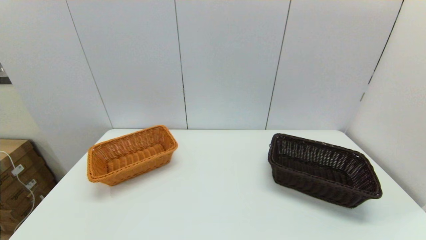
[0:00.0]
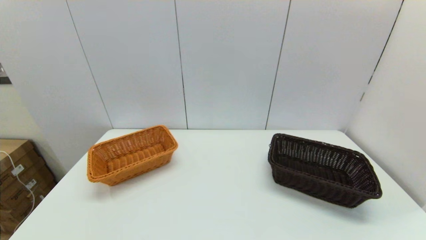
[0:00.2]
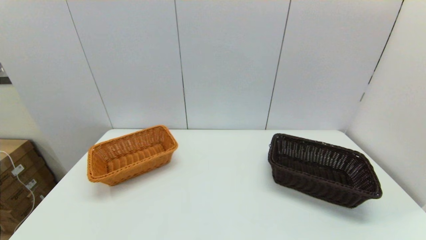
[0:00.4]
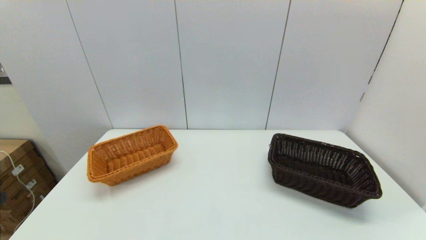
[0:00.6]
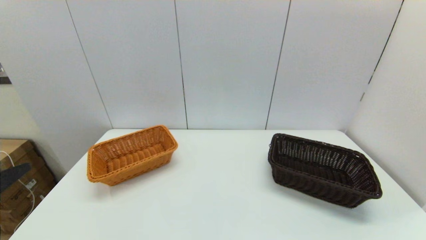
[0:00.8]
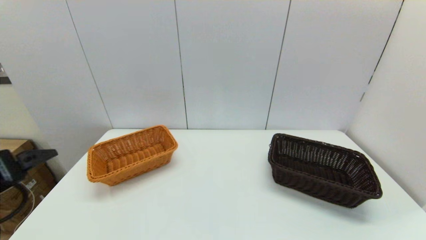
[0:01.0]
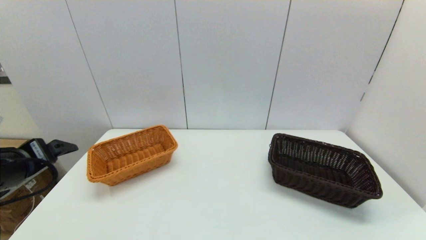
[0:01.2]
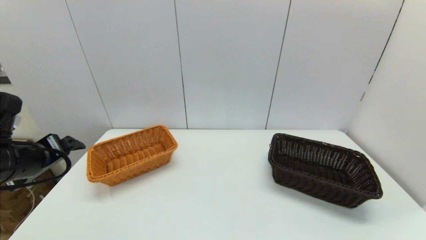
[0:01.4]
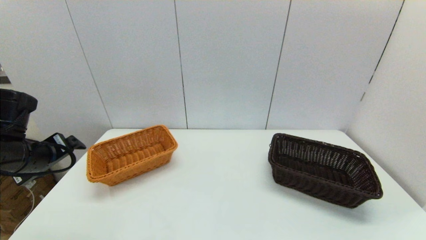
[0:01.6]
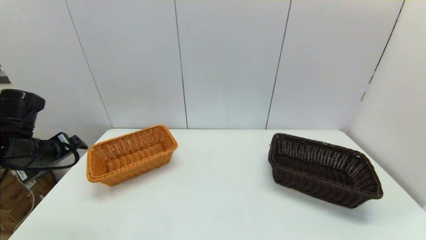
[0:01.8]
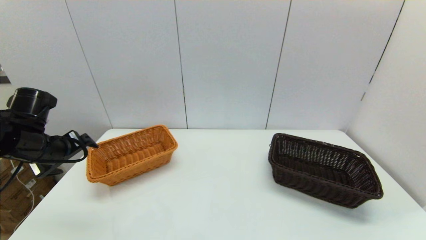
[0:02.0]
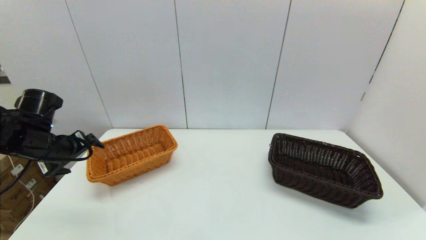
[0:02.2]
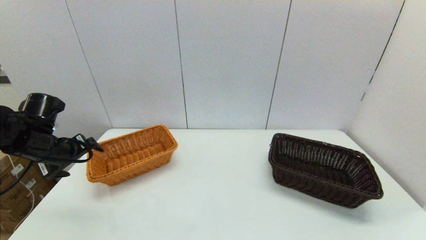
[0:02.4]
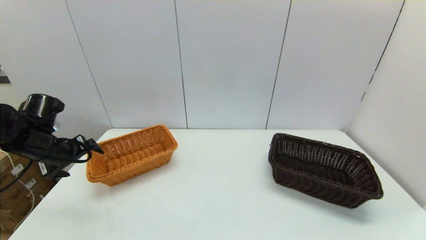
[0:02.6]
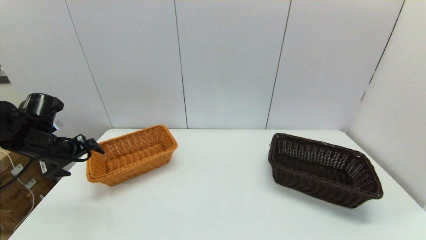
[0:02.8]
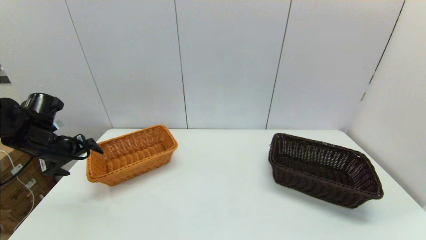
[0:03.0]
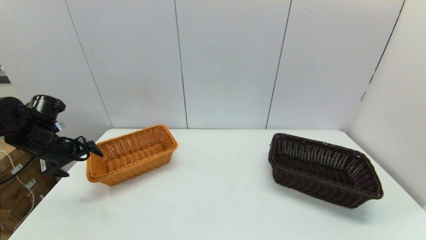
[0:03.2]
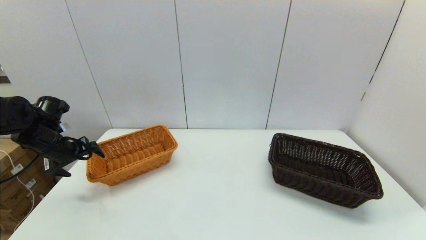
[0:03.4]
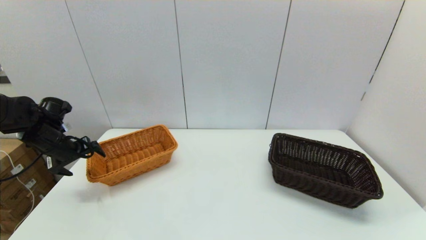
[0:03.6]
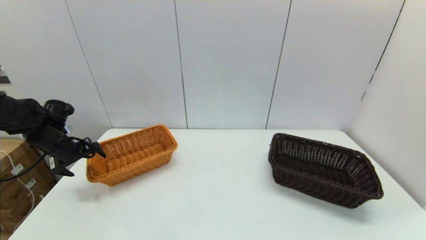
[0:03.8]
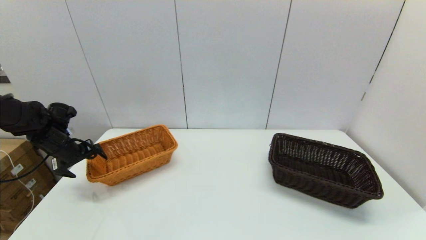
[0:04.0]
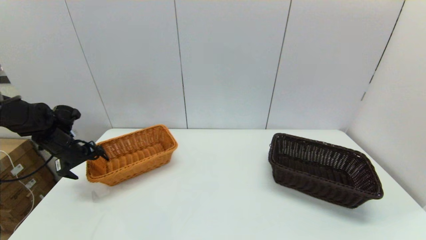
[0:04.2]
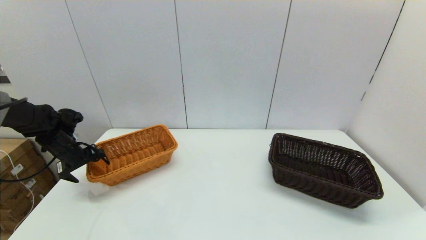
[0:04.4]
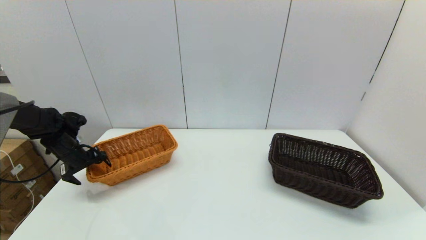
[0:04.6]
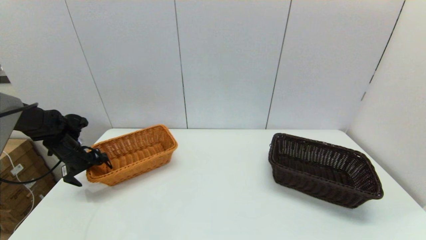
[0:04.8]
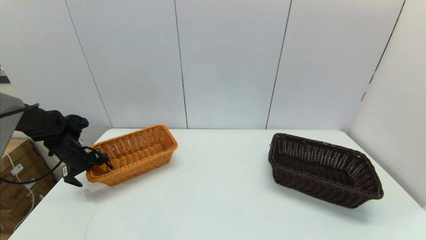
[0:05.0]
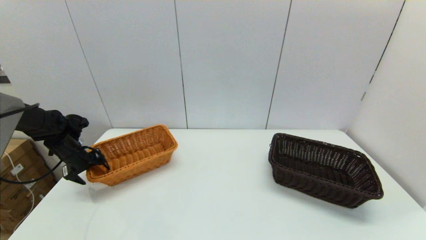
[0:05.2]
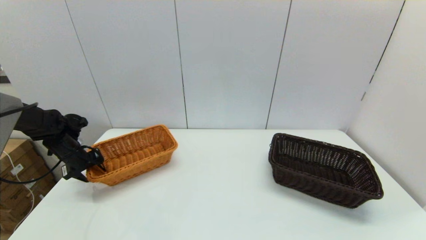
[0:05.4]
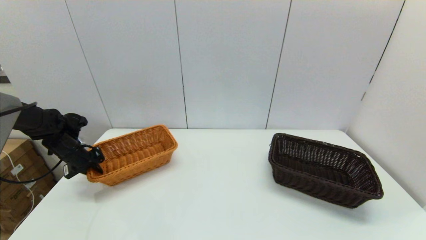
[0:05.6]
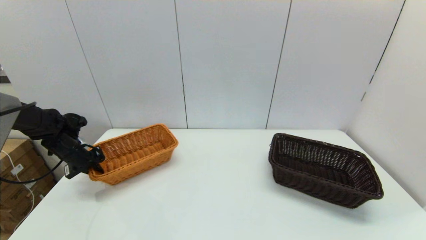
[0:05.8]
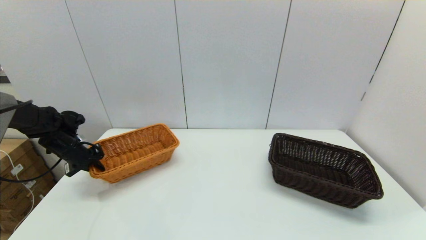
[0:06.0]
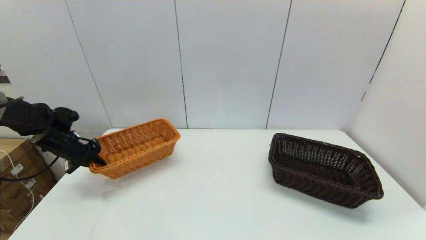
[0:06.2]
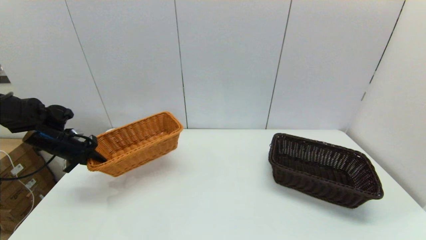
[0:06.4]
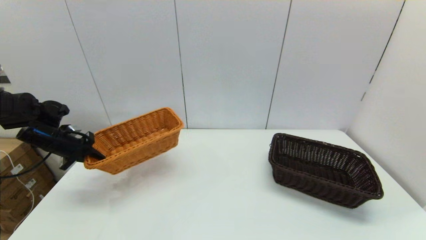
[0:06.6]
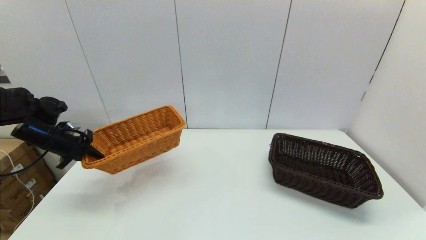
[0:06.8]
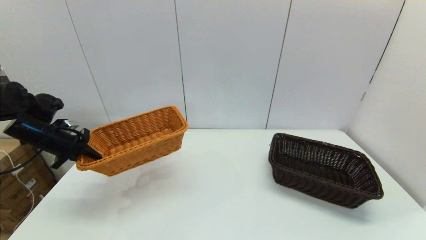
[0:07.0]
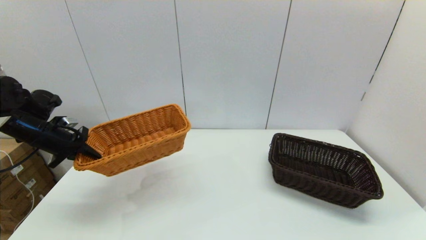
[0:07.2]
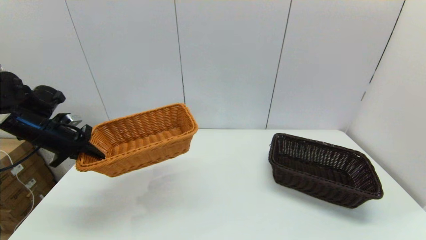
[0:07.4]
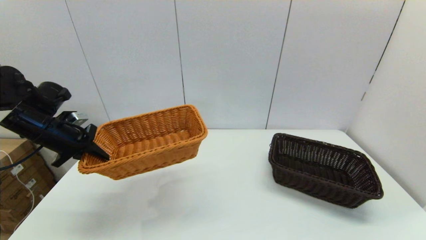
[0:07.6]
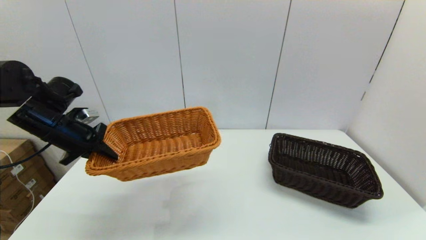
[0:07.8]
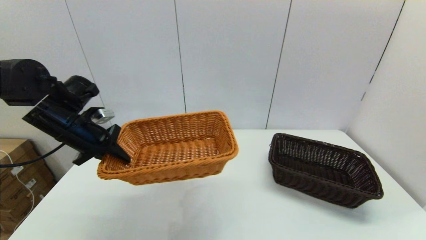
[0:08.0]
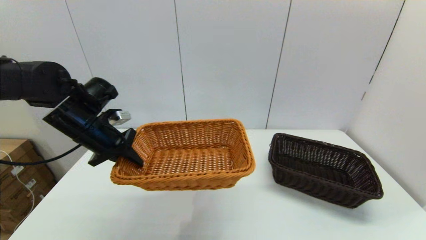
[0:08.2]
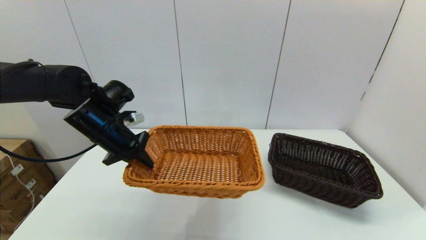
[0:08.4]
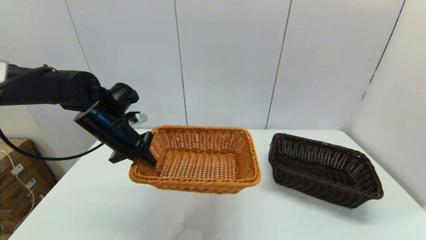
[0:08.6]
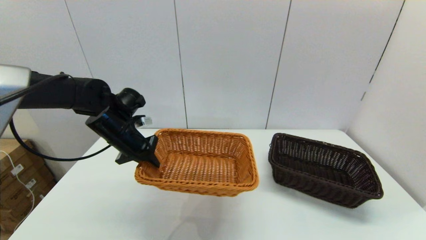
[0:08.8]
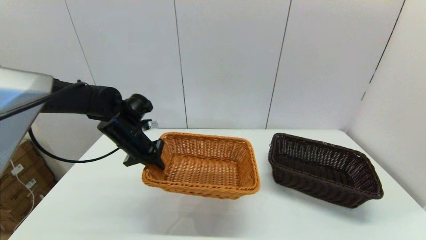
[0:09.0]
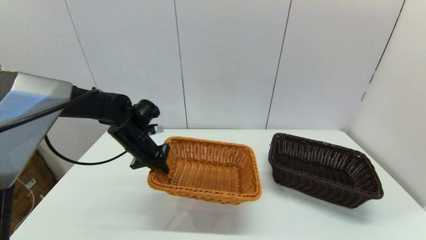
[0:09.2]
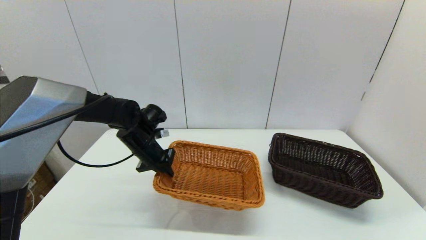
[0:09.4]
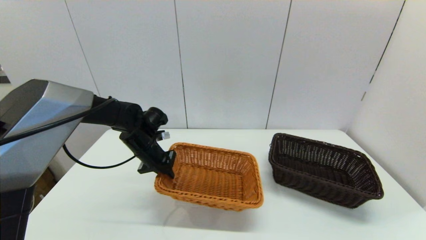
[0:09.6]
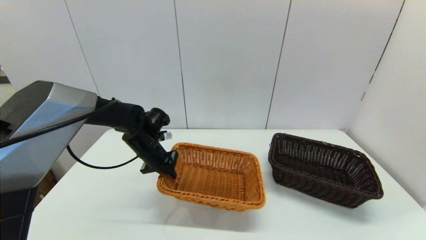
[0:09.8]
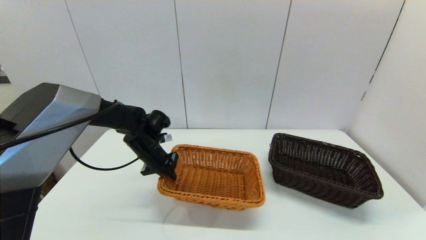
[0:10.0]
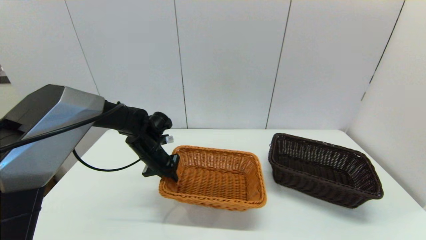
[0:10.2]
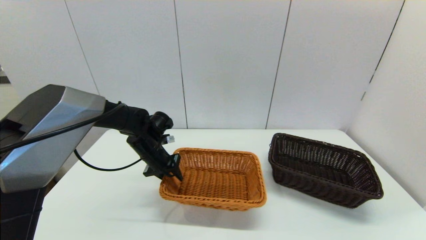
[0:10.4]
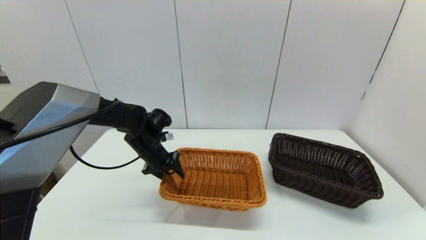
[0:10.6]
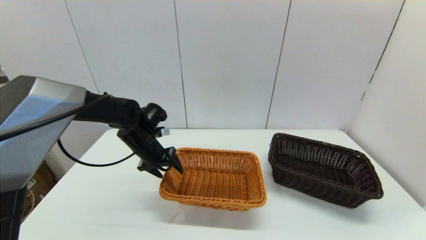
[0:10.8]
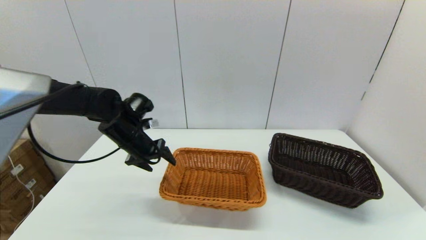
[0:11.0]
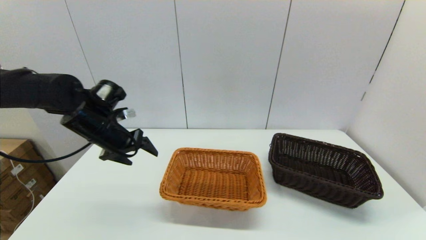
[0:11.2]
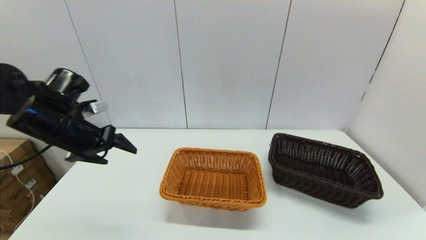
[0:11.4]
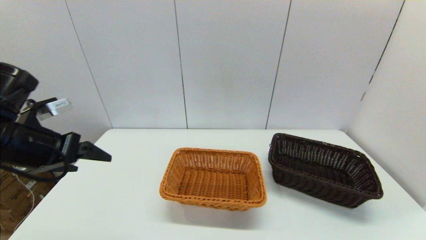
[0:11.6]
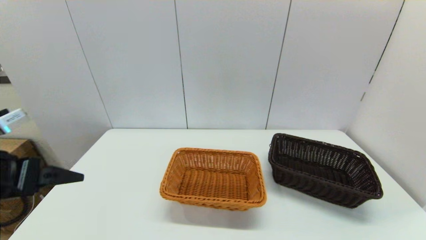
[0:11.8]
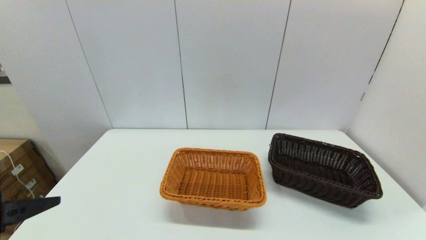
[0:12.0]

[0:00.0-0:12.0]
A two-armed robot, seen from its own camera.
Task of the whole recording: stack a basket on top of another basket.
Step, 0:00.0 to 0:05.8: Grasp the light basket with the left gripper.
Step, 0:06.0 to 0:11.0: Place the light basket on the middle of the table with the left gripper.
0:00.0 to 0:01.6: The left gripper moves forward, roughly 25 cm.
0:01.6 to 0:03.0: The left gripper goes about 10 cm forward.
0:03.0 to 0:04.4: The left gripper goes roughly 10 cm downward and forward.
0:04.4 to 0:06.0: The left gripper closes its fingers.
0:06.0 to 0:07.6: The left gripper is displaced upward, backward and to the right by some 15 cm.
0:07.6 to 0:09.0: The left gripper goes roughly 15 cm to the right and downward.
0:09.0 to 0:10.4: The left gripper moves downward, some 5 cm, and opens up.
0:10.4 to 0:12.0: The left gripper is displaced backward, upward and to the left by approximately 35 cm, and opens up.

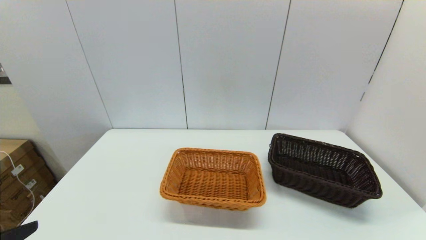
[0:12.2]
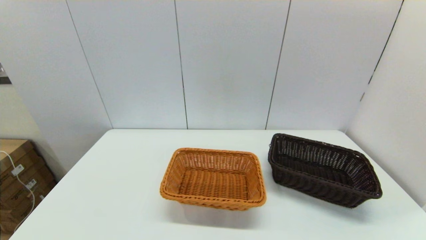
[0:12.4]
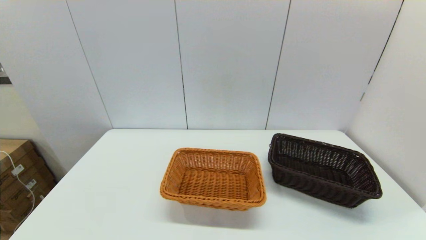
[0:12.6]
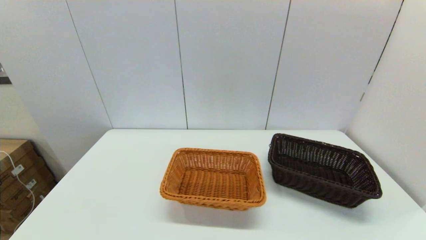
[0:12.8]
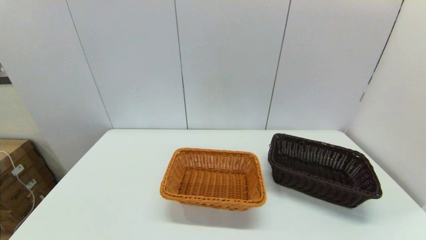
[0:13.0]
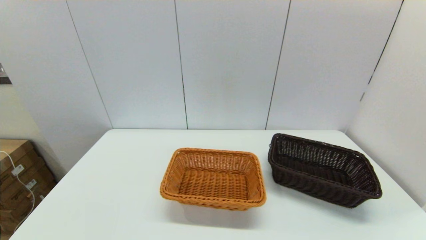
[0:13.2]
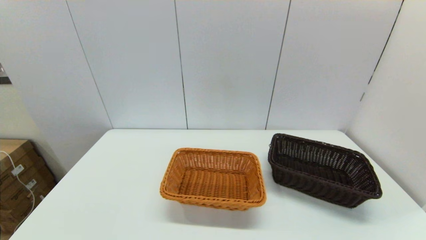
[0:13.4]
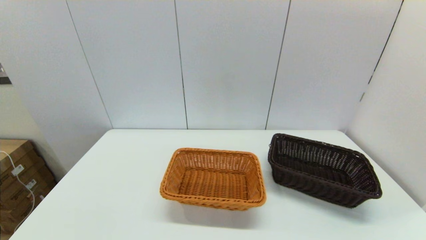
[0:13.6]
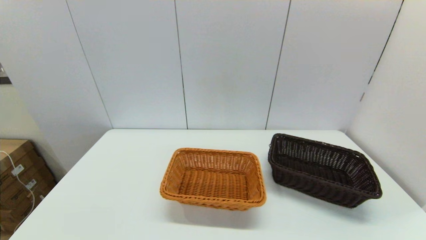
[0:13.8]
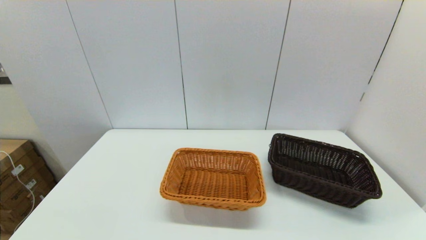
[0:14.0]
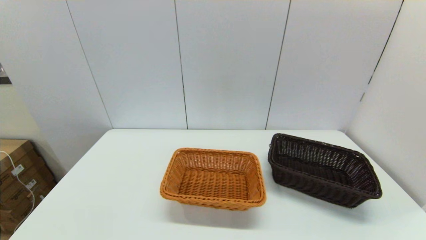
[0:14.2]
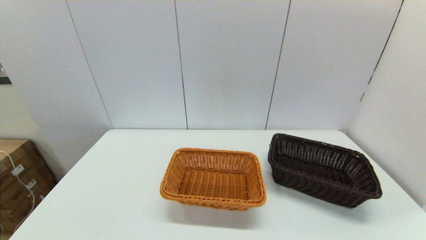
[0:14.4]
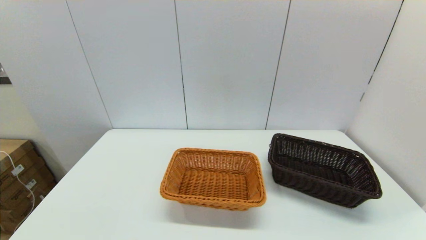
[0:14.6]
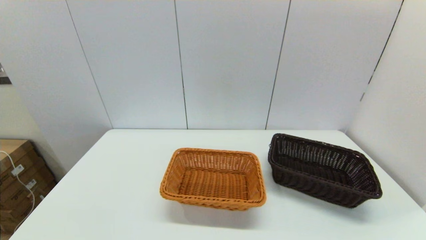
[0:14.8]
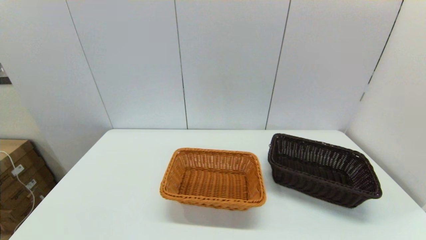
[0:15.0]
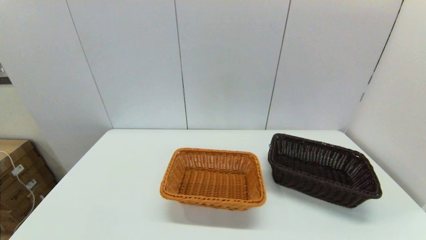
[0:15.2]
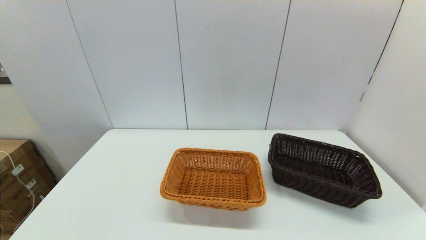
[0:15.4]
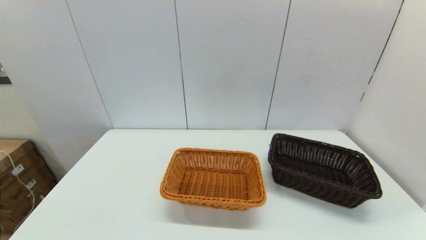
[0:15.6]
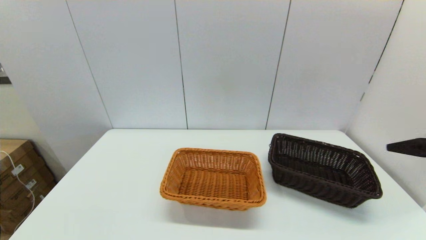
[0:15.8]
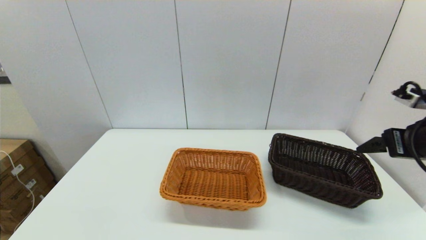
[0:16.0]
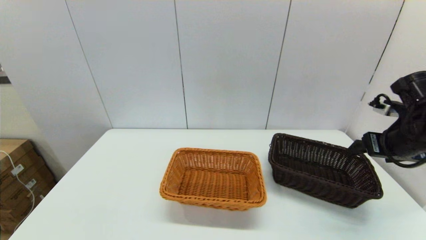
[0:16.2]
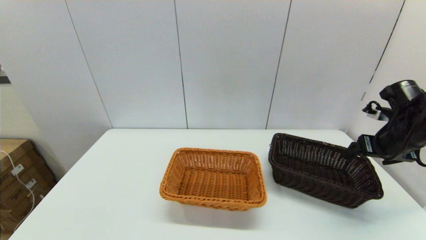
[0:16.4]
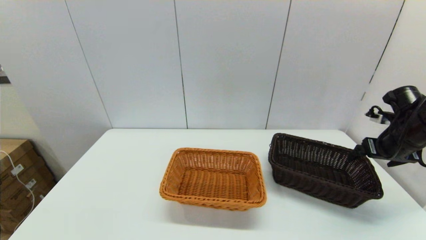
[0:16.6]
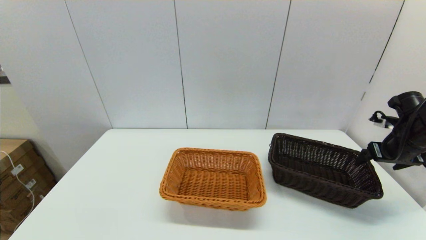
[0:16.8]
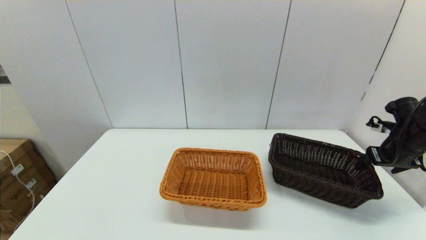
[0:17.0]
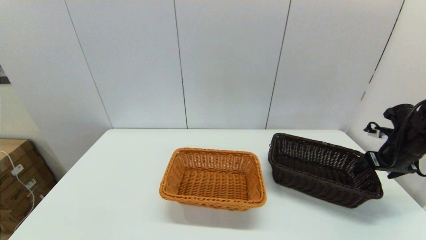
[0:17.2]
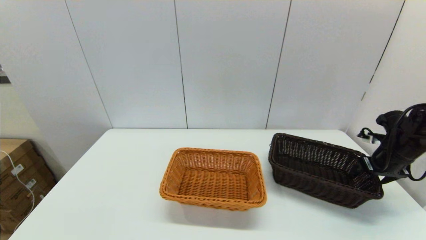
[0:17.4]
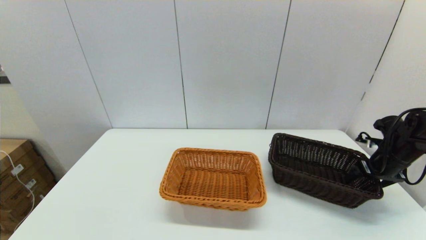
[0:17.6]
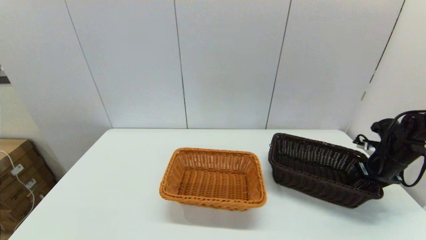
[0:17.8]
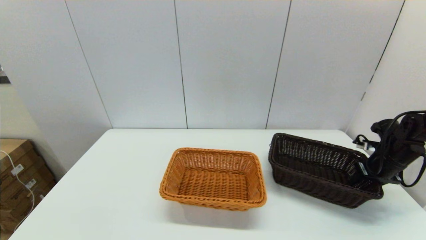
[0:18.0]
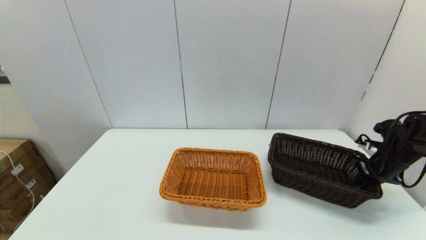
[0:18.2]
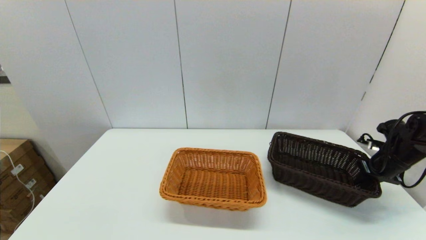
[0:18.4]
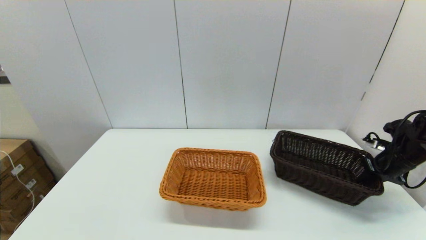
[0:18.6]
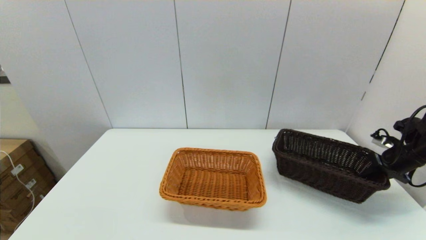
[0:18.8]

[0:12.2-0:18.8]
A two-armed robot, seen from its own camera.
Task of the whole recording: stack a basket on top of another basket.
Step, 0:12.2 to 0:18.2: Grasp the dark basket with the right gripper.
0:15.4 to 0:17.2: The right gripper is displaced forward and downward by approximately 35 cm.
0:17.2 to 0:18.8: The right gripper shifts by some 5 cm, and closes its fingers.
